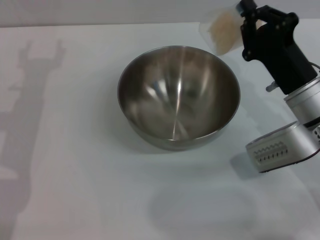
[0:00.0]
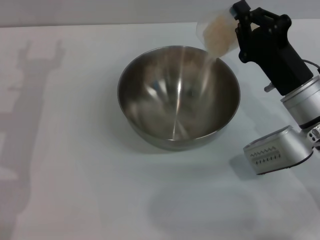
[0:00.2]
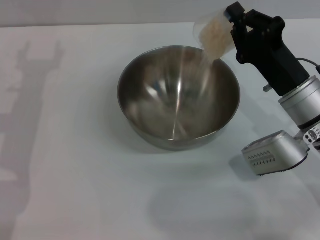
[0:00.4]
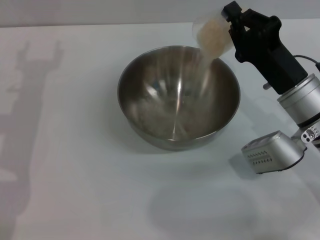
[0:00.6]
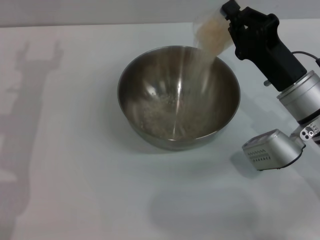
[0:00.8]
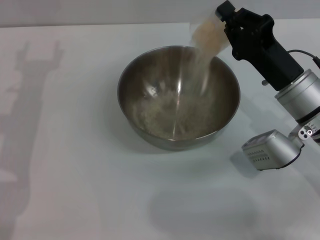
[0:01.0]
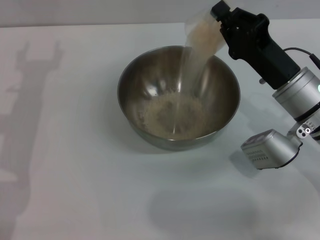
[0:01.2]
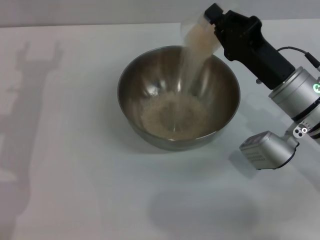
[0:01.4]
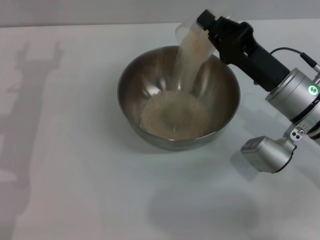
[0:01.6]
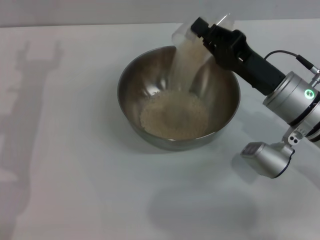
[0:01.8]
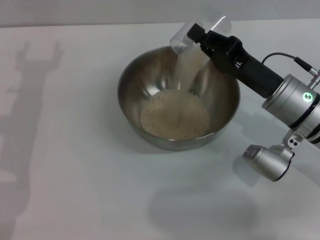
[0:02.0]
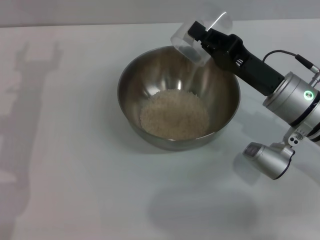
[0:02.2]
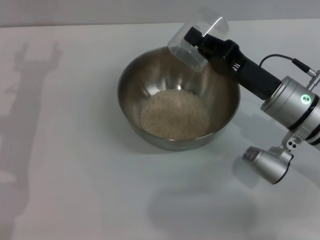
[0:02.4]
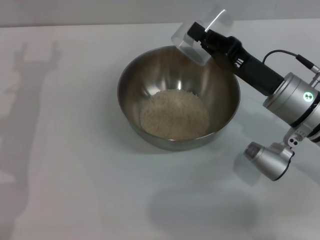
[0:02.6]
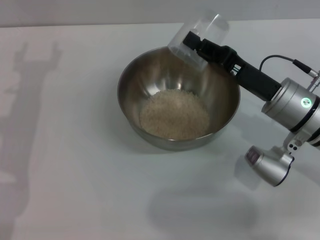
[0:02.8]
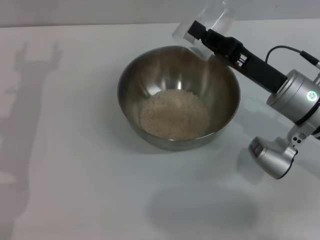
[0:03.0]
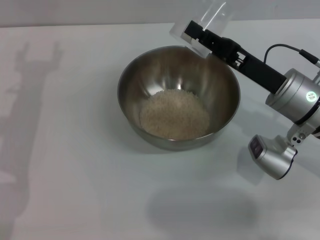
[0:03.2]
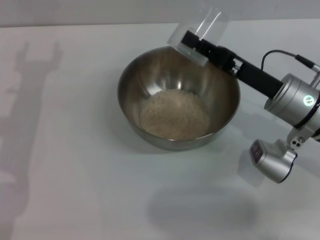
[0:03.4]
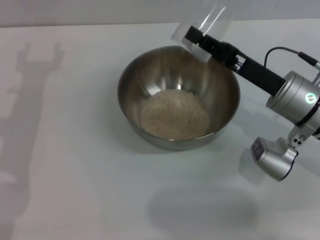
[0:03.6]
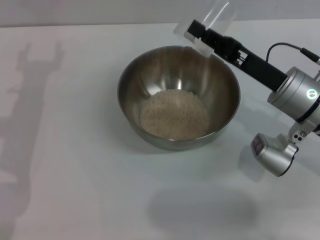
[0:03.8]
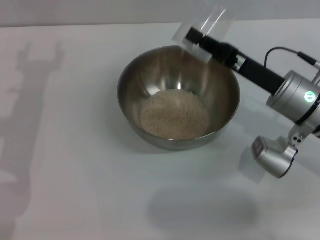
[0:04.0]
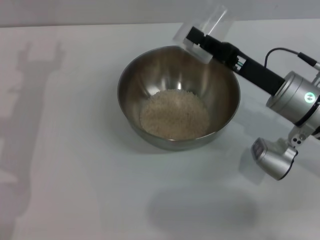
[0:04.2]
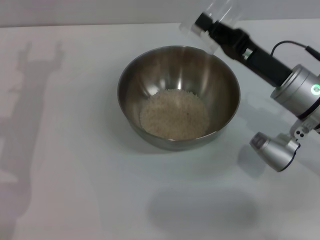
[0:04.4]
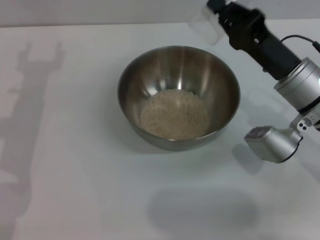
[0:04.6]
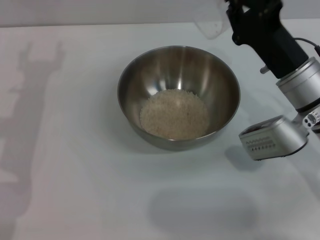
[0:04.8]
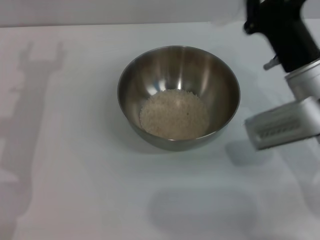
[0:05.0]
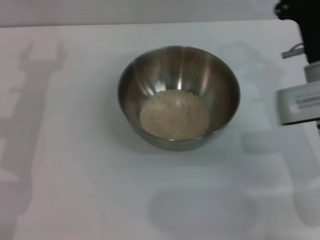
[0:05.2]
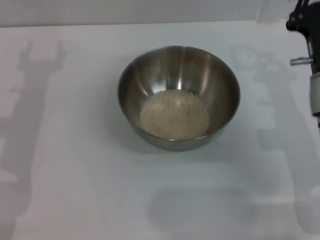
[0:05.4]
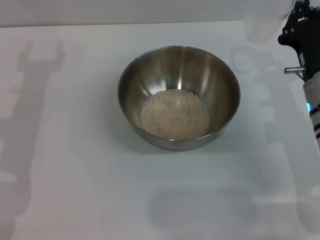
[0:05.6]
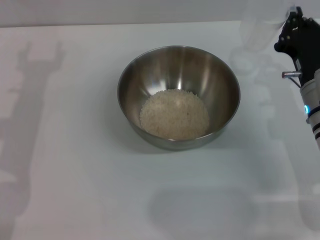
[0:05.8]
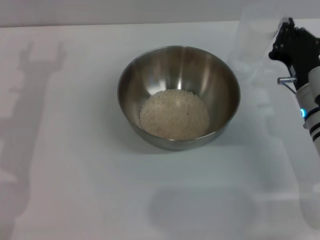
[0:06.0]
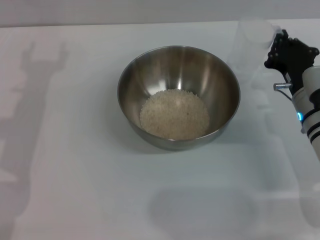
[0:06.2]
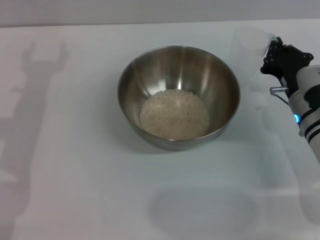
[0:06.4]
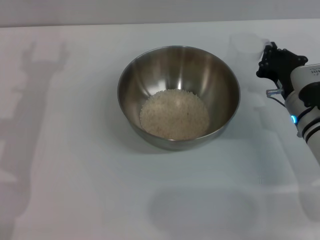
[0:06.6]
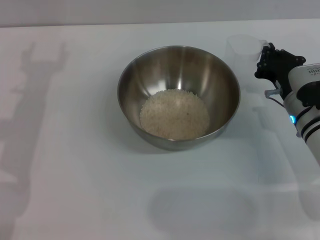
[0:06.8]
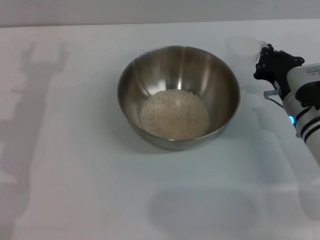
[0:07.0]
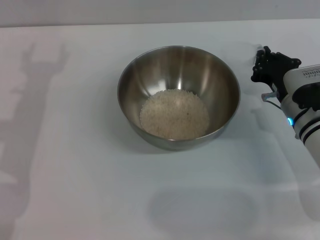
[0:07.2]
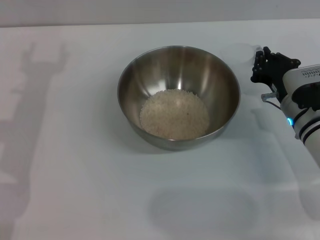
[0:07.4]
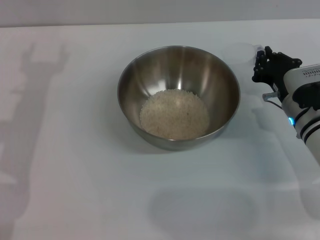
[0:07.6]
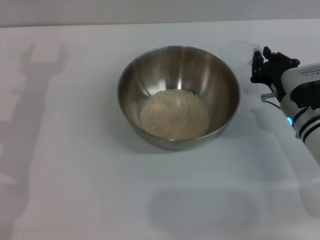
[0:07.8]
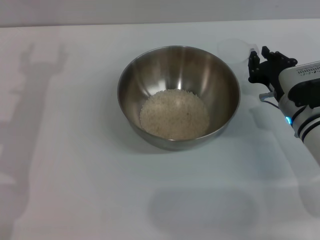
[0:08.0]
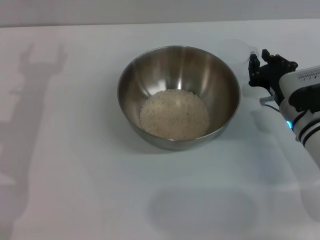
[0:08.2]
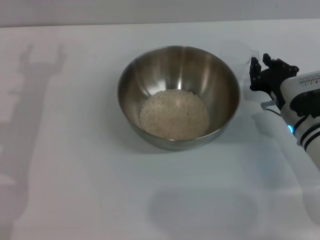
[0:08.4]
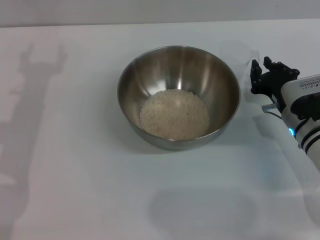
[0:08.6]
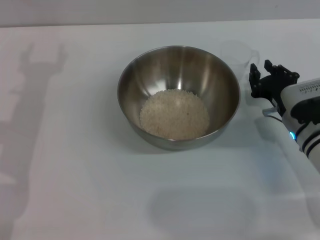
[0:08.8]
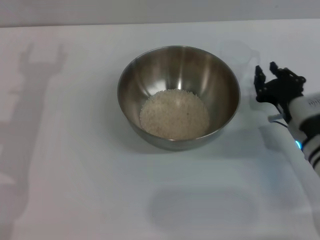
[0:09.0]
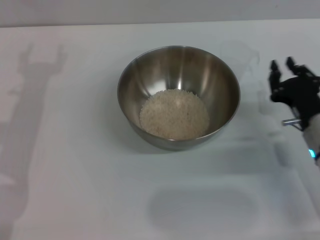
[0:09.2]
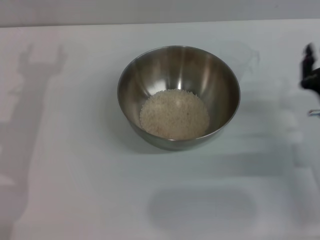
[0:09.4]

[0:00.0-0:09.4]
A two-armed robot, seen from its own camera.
Task of the whole recording: Place the bowl in the middle of the table with one hand and pour the rice from the grain cup into it with the other hand.
Step, 0:00.0 to 0:04.8: Pour the rice from the cup into the bowl with the right gripper.
Step, 0:05.0 to 0:09.0: Place the cup on the table with the right gripper.
0:04.8 to 0:06.2: The right gripper is displaced downward by about 5 cm.
0:06.2 to 0:07.8: The grippers stay close to where they were, moving slightly.
0:07.8 to 0:09.4: The right gripper is displaced backward by about 5 cm.

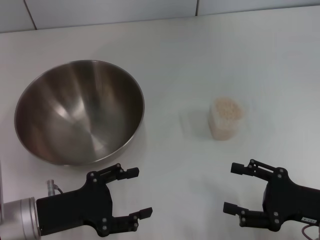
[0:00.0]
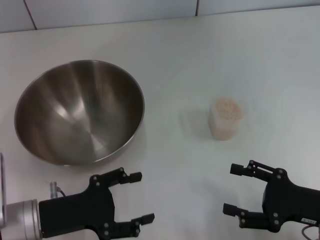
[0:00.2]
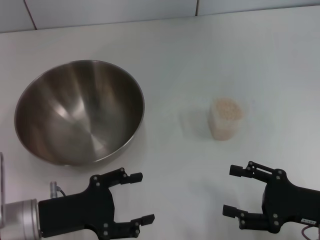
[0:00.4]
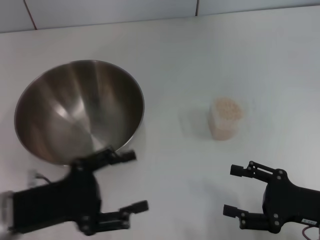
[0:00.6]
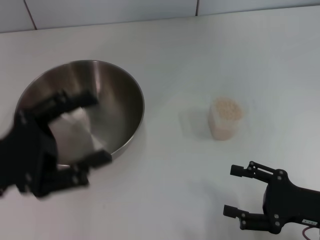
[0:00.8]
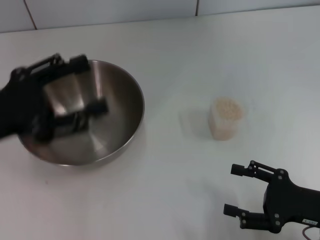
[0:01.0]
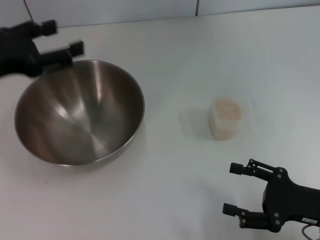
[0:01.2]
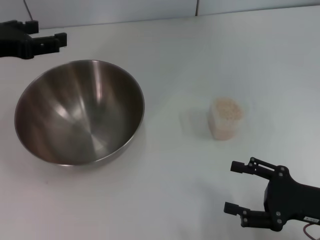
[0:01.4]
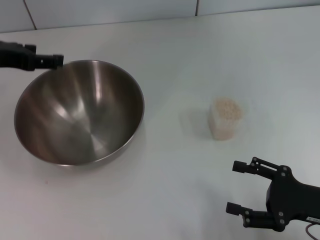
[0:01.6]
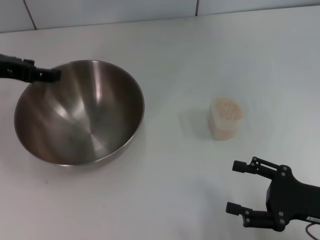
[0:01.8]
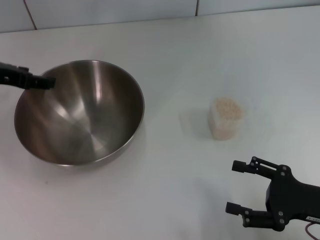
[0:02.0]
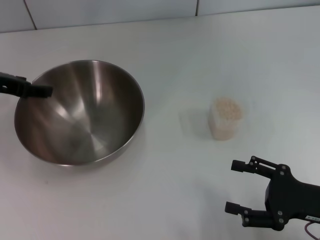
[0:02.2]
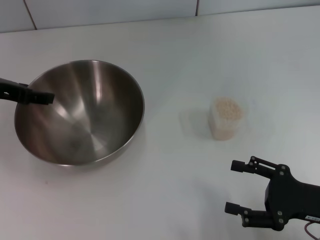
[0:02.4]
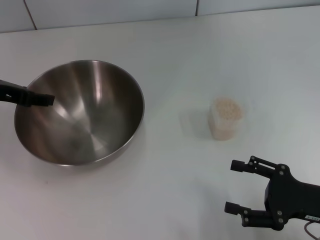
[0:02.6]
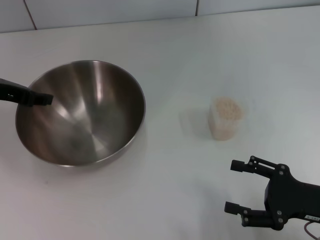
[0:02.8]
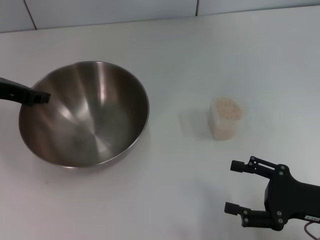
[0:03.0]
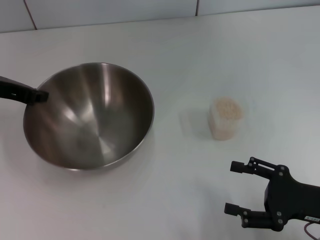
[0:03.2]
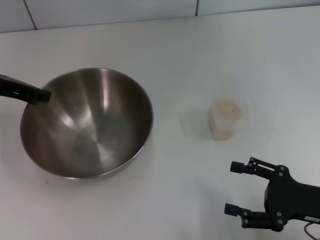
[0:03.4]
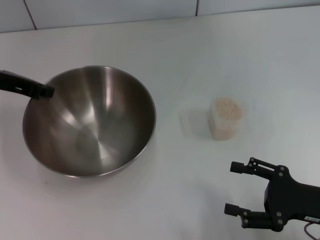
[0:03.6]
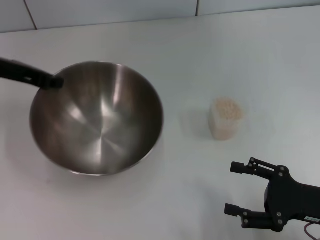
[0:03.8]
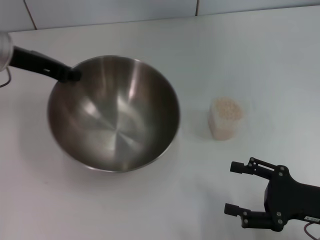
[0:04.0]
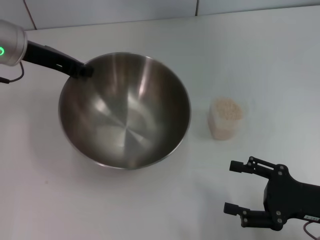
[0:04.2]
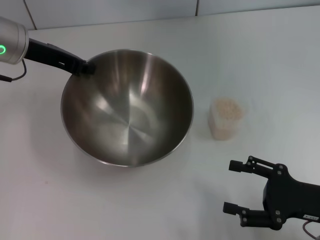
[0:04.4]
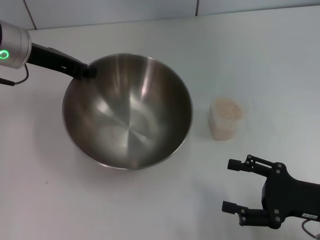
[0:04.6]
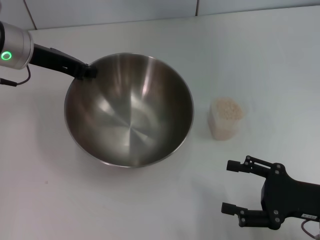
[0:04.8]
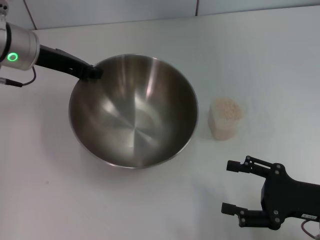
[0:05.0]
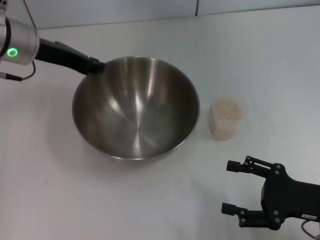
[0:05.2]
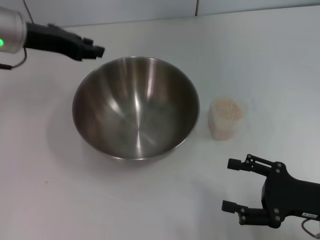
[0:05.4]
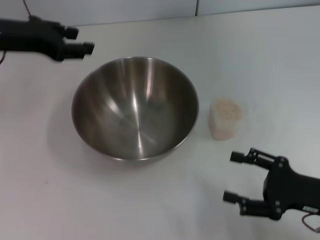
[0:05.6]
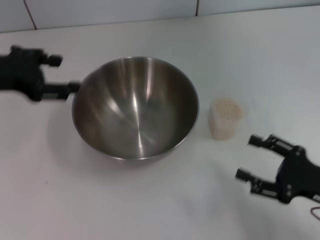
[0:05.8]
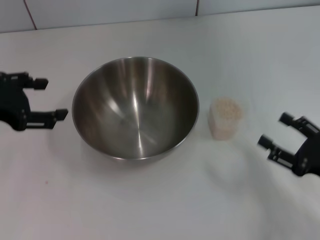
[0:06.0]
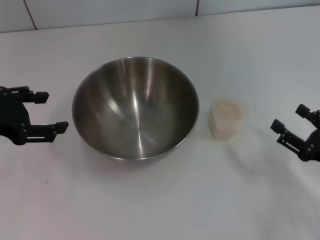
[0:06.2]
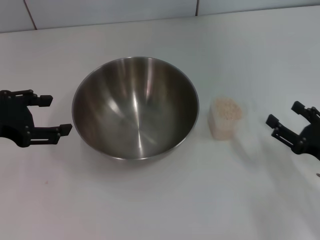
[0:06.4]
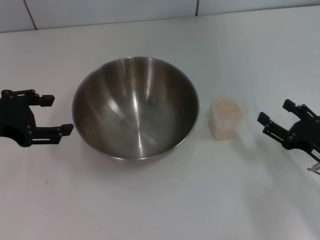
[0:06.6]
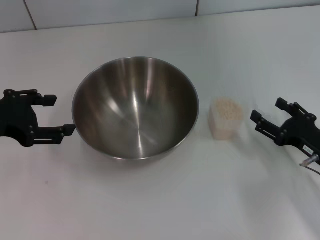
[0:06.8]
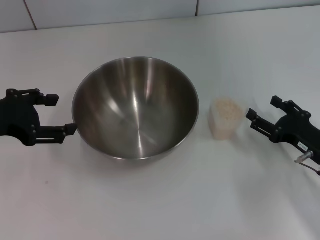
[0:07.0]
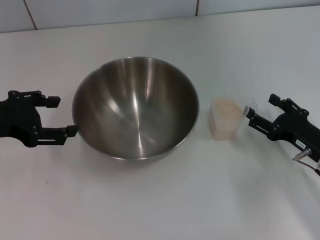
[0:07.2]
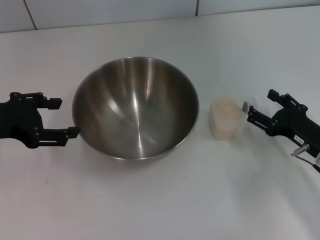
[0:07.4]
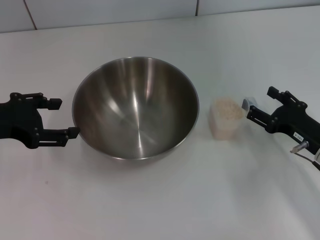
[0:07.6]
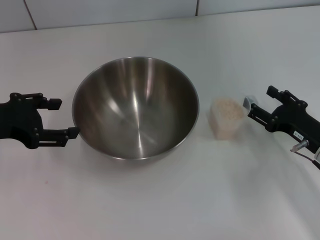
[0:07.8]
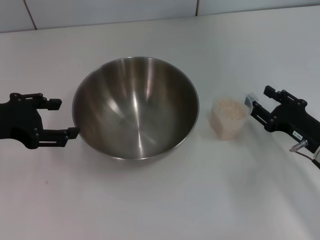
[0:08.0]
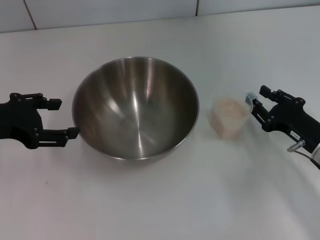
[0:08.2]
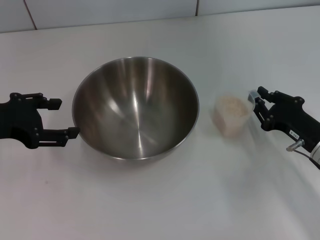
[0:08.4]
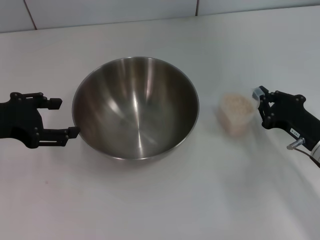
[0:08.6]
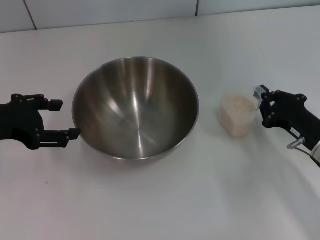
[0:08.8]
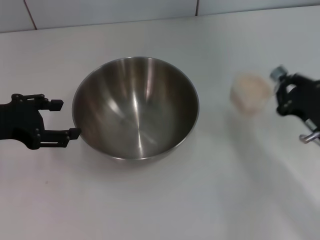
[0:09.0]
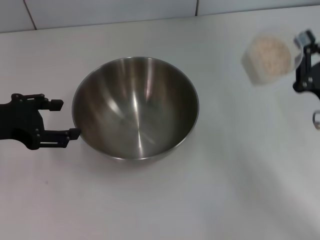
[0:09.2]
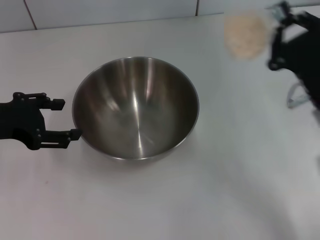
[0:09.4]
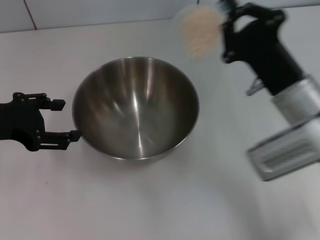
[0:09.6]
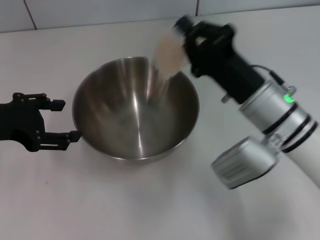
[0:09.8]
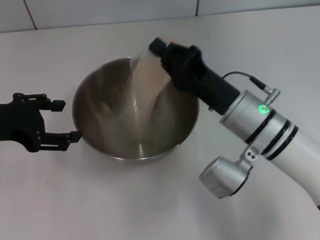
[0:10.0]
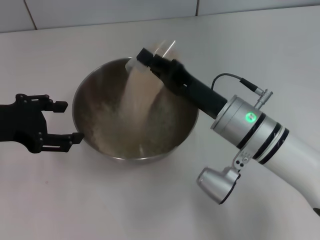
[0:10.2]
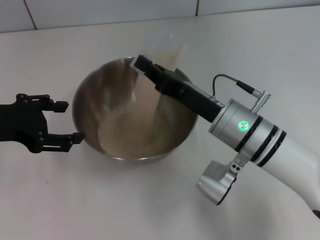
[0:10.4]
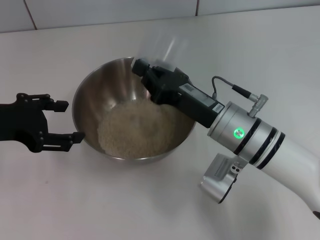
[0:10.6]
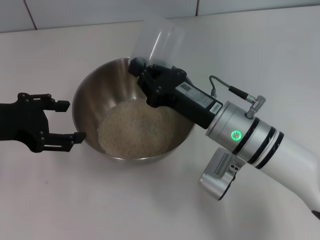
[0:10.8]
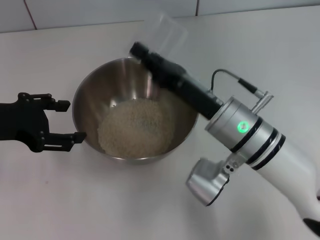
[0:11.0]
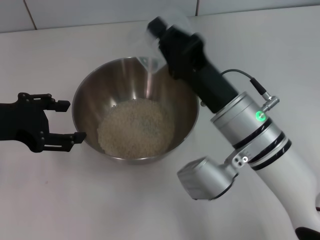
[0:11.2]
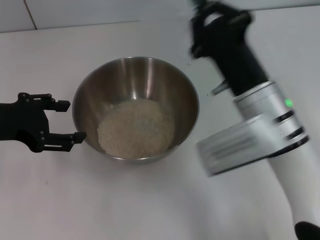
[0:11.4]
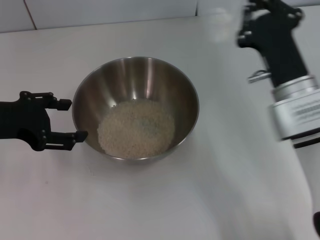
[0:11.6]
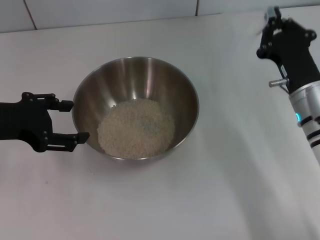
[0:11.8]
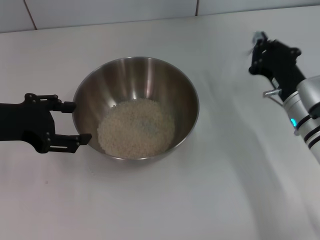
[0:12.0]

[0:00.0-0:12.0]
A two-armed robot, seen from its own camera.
Task of the whole recording: Place the bowl in the middle of the table with one hand and pour the rice from the grain cup into it with the other hand.
Step, 0:00.0 to 0:03.4: Pick up the bowl with the left gripper.
Step, 0:03.6 to 0:05.6: Place the bowl in the center of view with the left gripper.
Step, 0:06.0 to 0:09.0: Pick up the cup with rice in it with the right gripper.
Step, 0:09.2 to 0:11.4: Pour the rice from the cup into the bowl with the right gripper.
0:00.0 to 0:01.6: The left gripper moves upward and forward, roughly 20 cm.
0:01.6 to 0:03.0: The left gripper closes.
0:03.0 to 0:04.4: The left gripper goes about 5 cm to the right, and closes up.
0:04.4 to 0:06.0: The left gripper is displaced backward and to the left by some 15 cm, and opens its fingers.
0:06.0 to 0:07.6: The right gripper shifts some 10 cm forward.
0:07.6 to 0:09.0: The right gripper closes.
0:09.0 to 0:10.4: The right gripper heads to the left, covering some 15 cm.
0:10.4 to 0:12.0: The right gripper shifts about 10 cm to the right.
